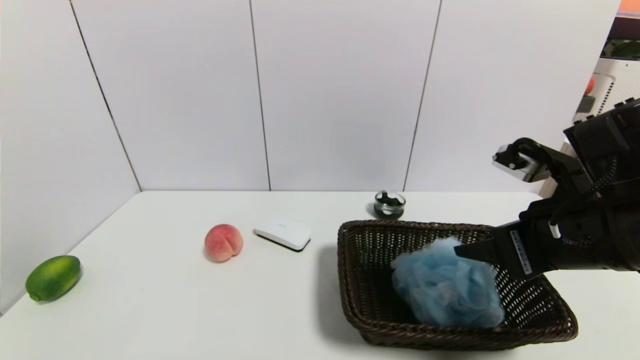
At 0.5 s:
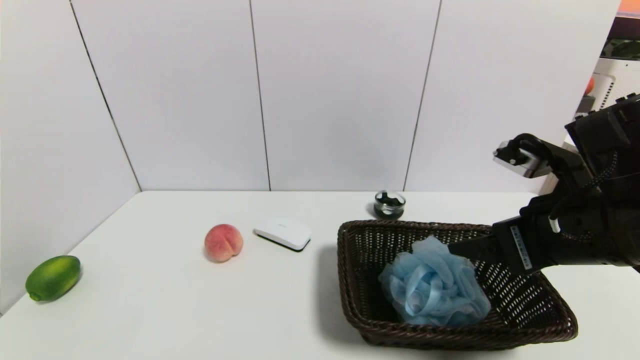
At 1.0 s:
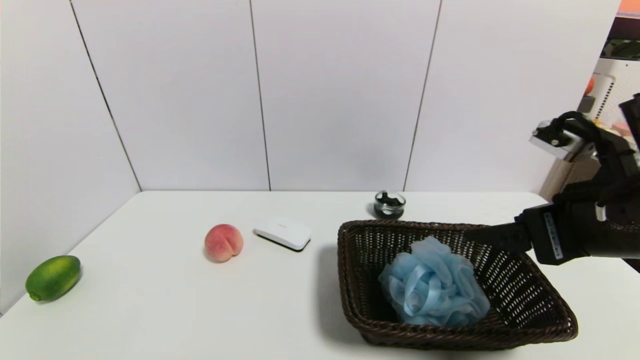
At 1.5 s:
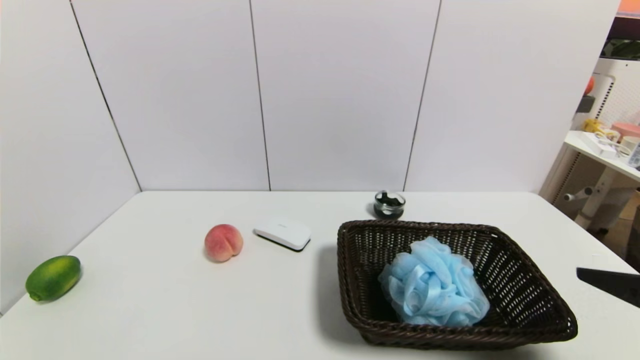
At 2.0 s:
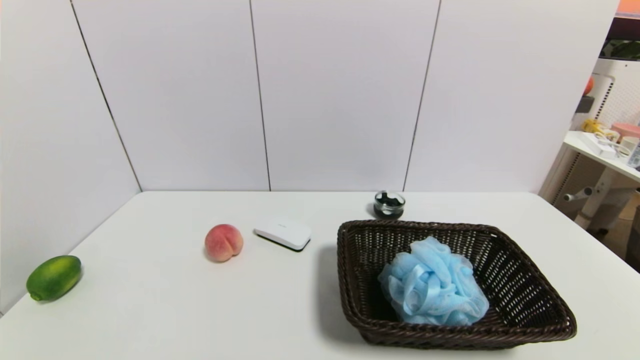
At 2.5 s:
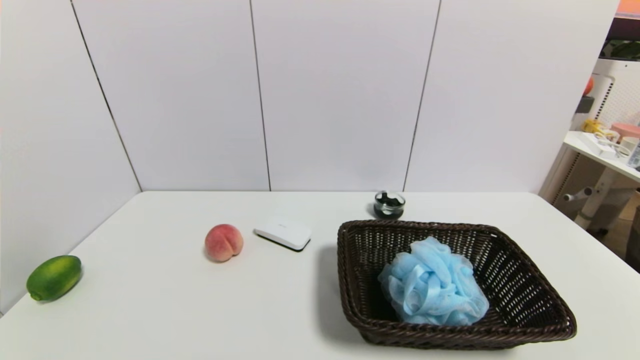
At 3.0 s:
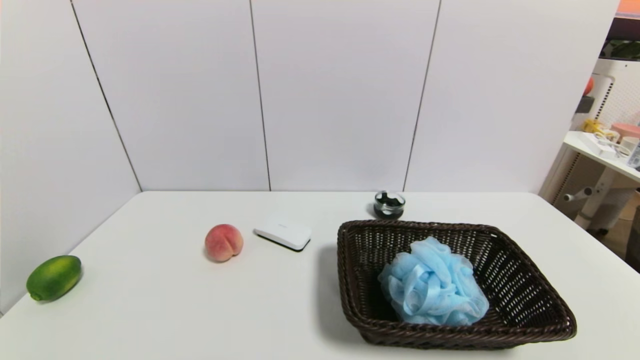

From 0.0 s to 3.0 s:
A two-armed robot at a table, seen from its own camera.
Task of the whole recording: use a gripper to pick the target object and place on the brown basket.
From 0.0 s to 1.5 s: The right gripper heads backward and to the right, covering some 15 cm, and opens.
From 1.5 s to 3.0 s: The right gripper travels downward and backward by roughly 20 cm.
